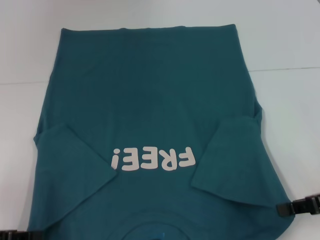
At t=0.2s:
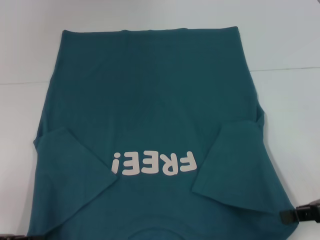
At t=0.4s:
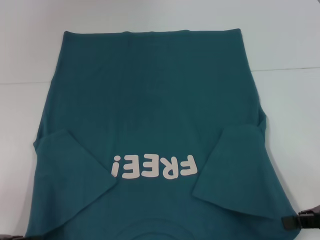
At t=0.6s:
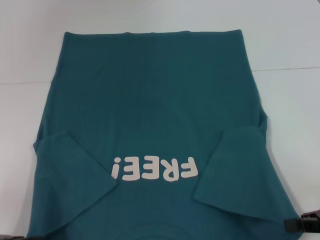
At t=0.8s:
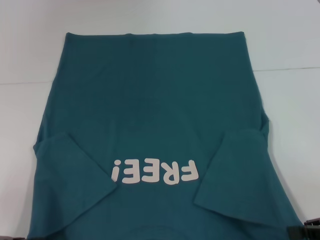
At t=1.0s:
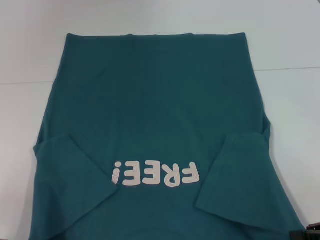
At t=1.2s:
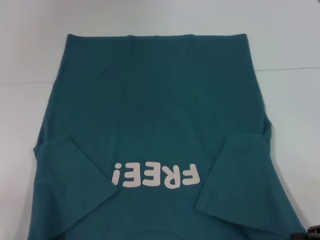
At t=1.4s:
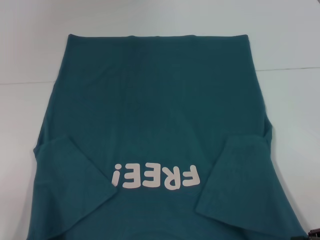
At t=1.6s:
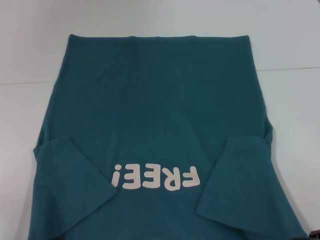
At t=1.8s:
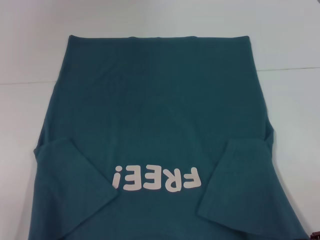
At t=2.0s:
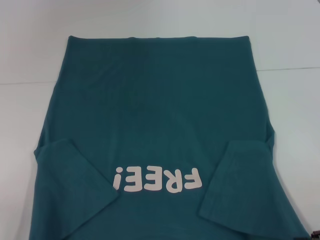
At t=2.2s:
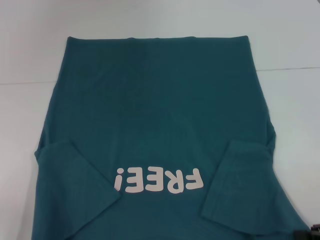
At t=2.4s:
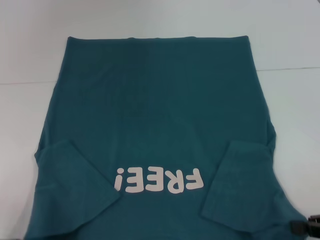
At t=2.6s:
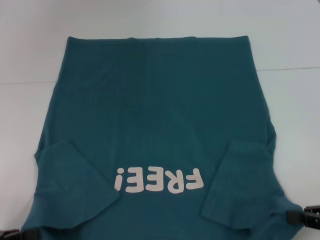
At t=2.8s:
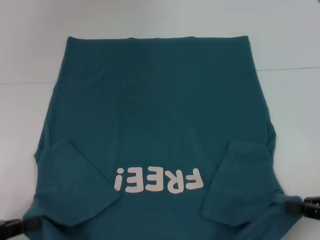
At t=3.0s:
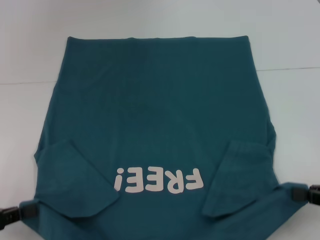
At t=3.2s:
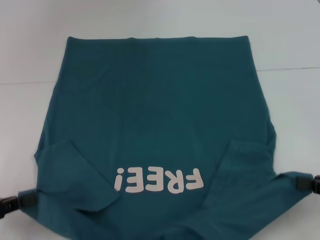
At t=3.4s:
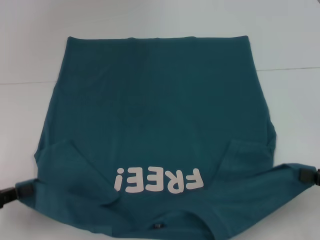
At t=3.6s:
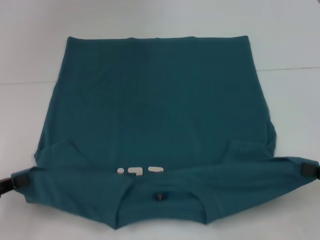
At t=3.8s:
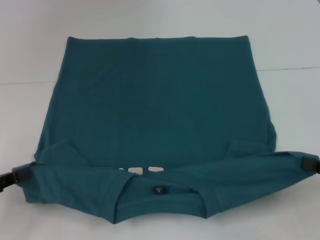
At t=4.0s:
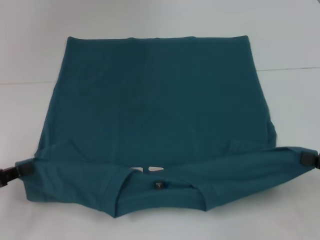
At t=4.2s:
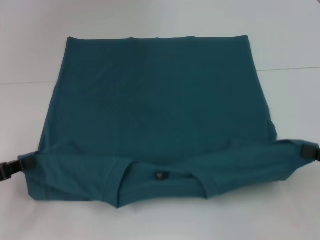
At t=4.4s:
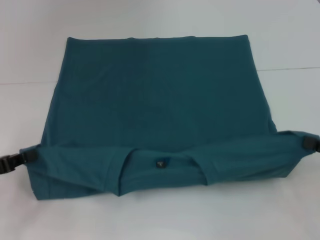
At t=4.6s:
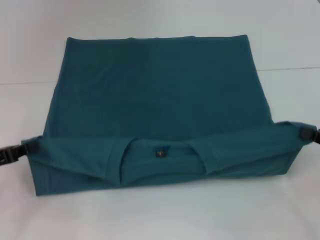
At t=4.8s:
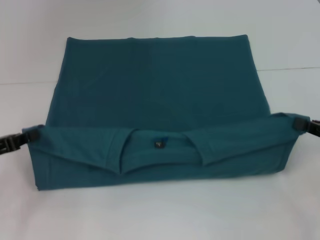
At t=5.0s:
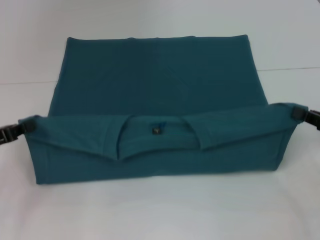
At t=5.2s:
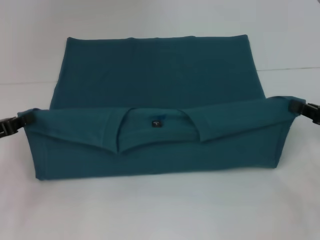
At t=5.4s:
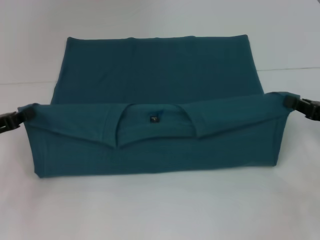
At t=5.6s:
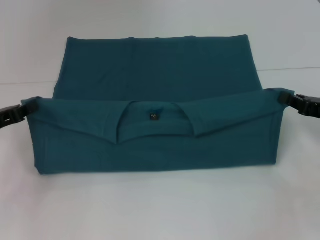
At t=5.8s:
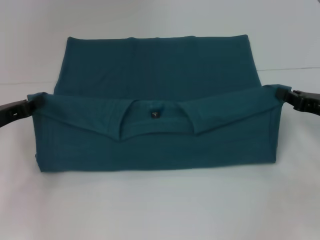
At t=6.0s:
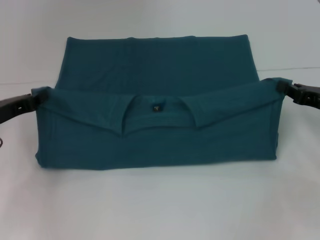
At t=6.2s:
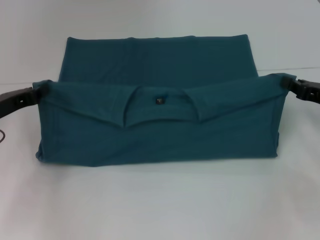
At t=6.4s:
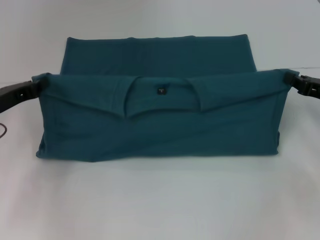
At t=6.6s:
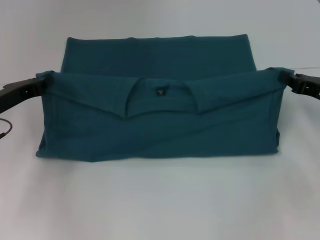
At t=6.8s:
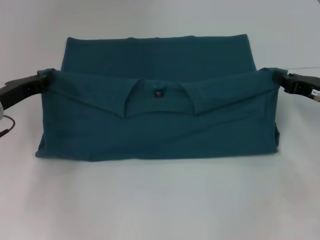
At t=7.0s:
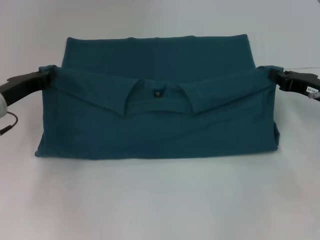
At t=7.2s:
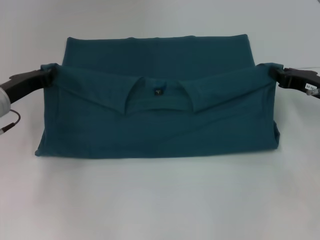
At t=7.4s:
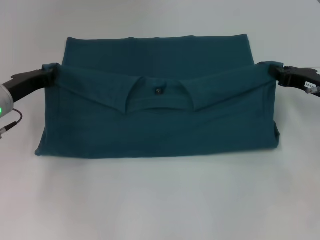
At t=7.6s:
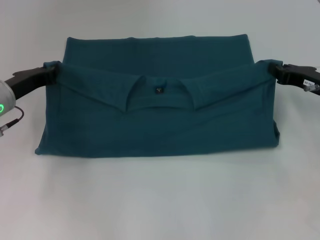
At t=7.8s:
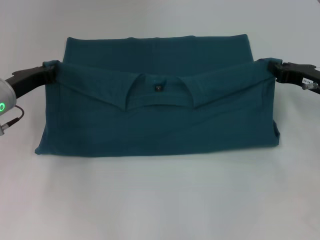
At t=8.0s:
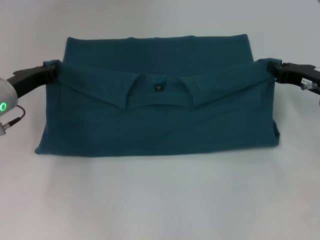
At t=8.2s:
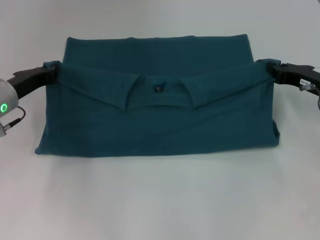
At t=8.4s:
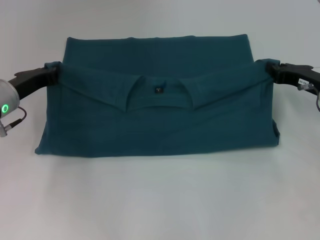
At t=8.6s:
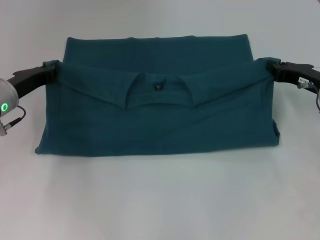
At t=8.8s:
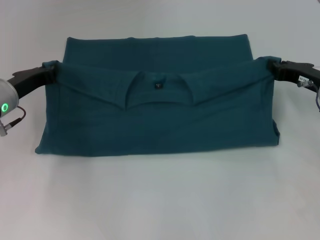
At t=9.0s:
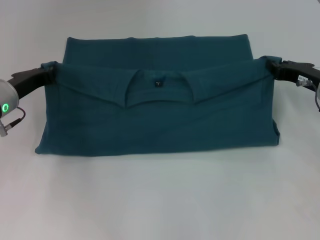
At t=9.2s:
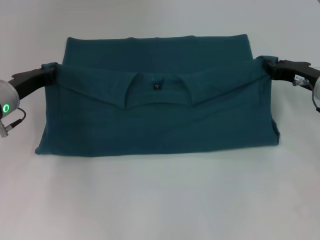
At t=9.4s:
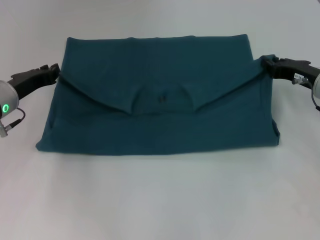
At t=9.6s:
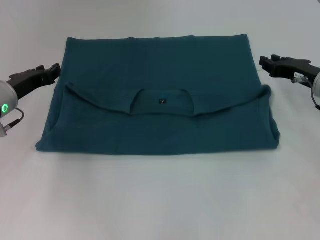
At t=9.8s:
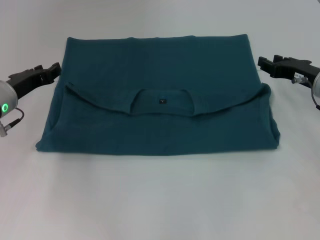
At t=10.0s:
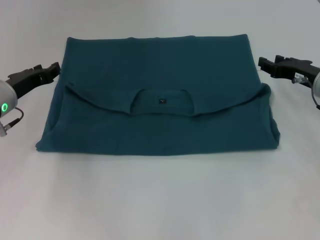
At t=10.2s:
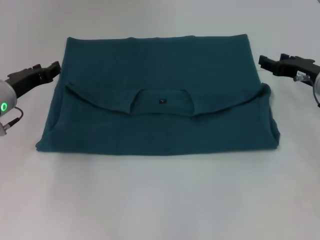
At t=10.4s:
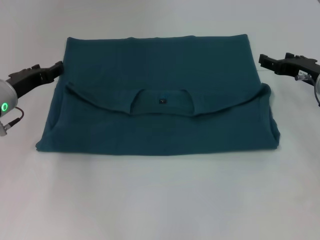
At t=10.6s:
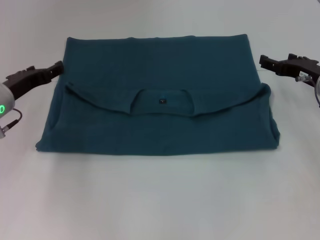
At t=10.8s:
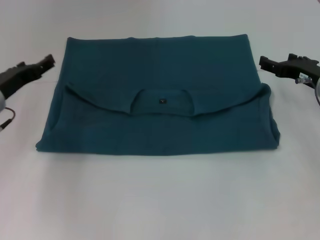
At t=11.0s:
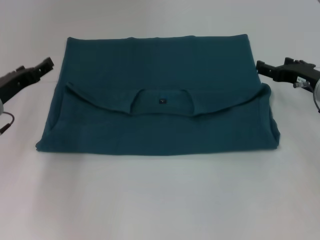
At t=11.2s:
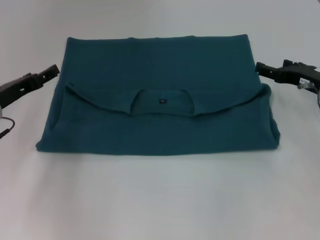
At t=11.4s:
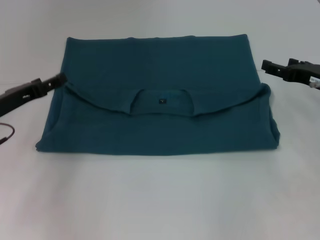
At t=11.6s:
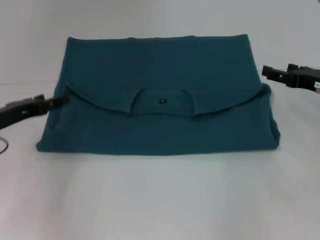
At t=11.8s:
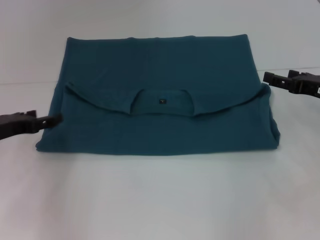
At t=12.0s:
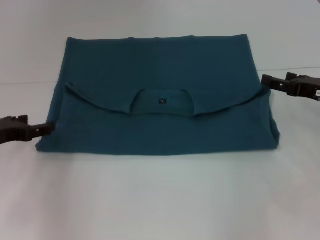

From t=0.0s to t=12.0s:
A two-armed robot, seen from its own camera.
Step, from t=0.0s to t=9.6s: Fold the clothes to the left.
Step, from t=0.0s to t=9.6s: Fold the clothes to the right.
From t=0.0s to t=1.6s: The right gripper goes some 5 cm backward.
From t=1.6s to t=3.0s: The grippers move only a little.
From t=3.0s to t=4.4s: The left gripper is displaced forward by approximately 5 cm.
From t=4.4s to t=6.0s: Both grippers move forward, approximately 10 cm.
From t=6.0s to t=7.6s: The left gripper shifts by about 5 cm. Meanwhile the right gripper moves about 5 cm.
From t=7.6s to t=9.0s: There are only small adjustments of the grippers.
From t=9.0s to t=10.4s: The right gripper opens. Meanwhile the left gripper opens up.
From t=10.4s to t=12.0s: The right gripper travels backward by some 5 cm; the left gripper goes about 10 cm backward and to the left, and opens.

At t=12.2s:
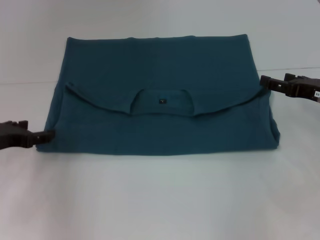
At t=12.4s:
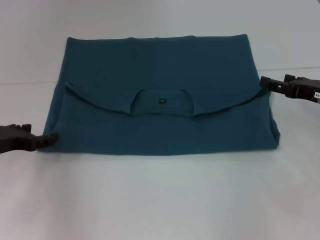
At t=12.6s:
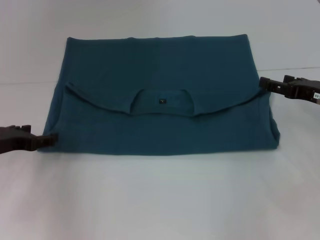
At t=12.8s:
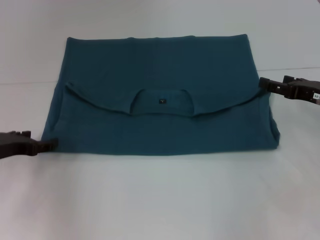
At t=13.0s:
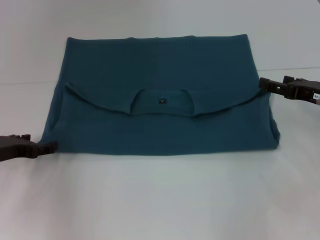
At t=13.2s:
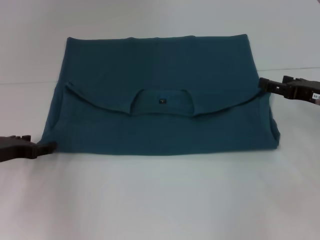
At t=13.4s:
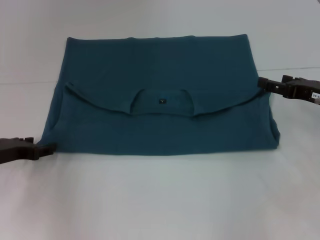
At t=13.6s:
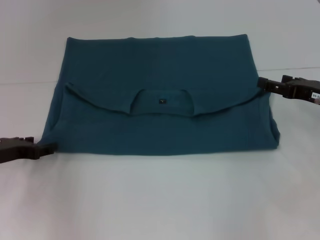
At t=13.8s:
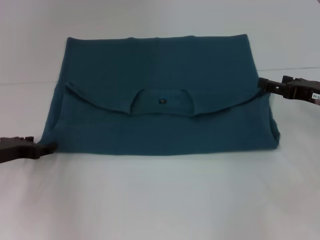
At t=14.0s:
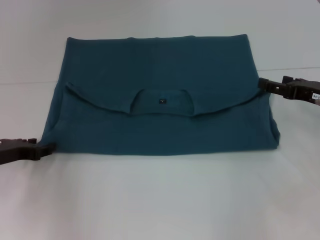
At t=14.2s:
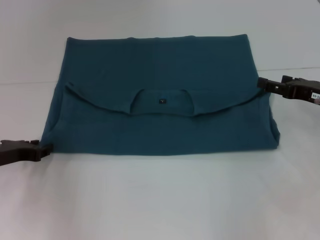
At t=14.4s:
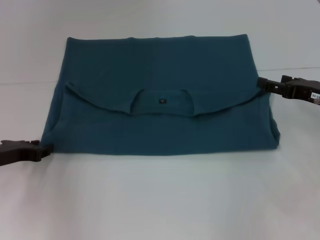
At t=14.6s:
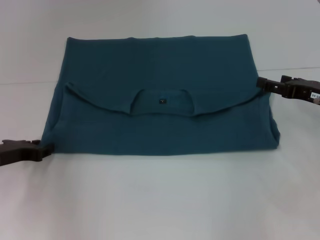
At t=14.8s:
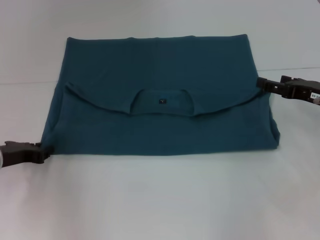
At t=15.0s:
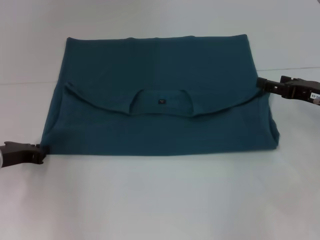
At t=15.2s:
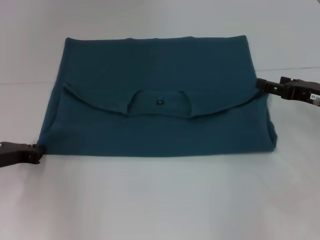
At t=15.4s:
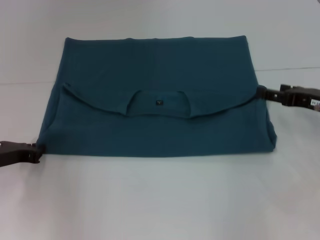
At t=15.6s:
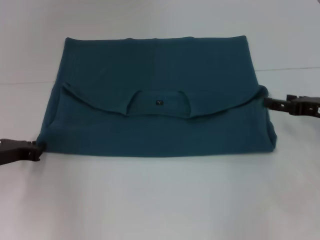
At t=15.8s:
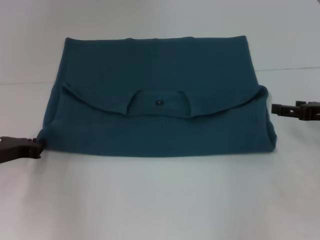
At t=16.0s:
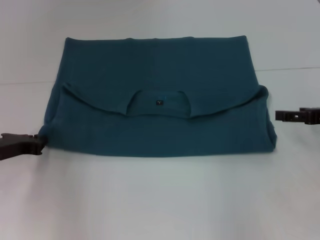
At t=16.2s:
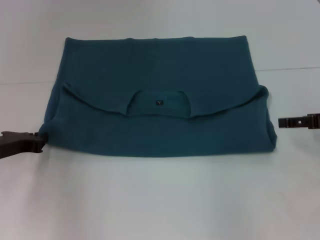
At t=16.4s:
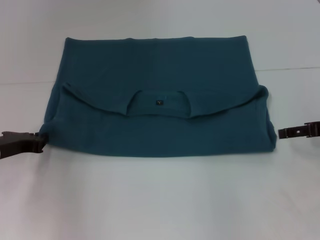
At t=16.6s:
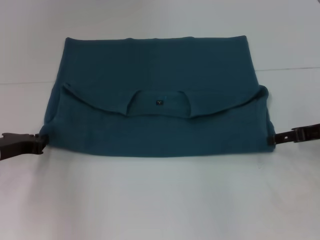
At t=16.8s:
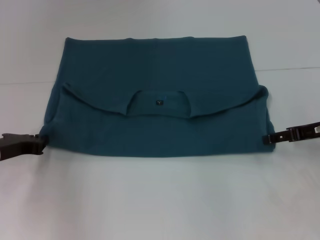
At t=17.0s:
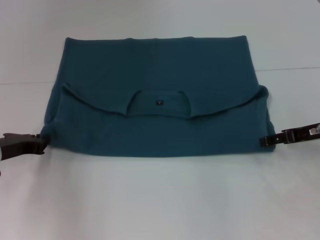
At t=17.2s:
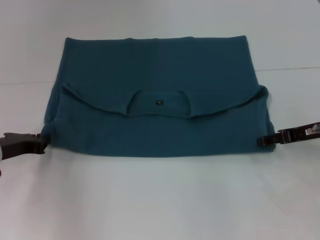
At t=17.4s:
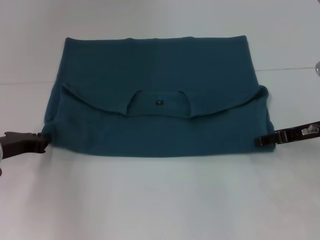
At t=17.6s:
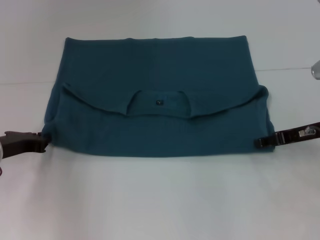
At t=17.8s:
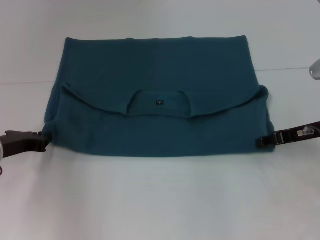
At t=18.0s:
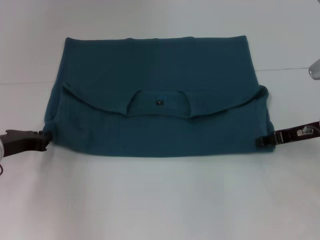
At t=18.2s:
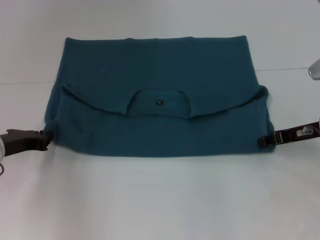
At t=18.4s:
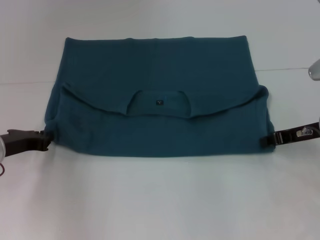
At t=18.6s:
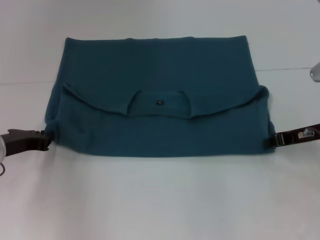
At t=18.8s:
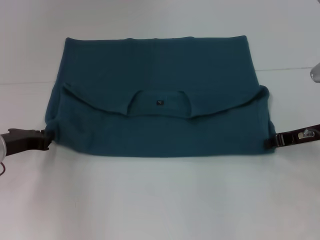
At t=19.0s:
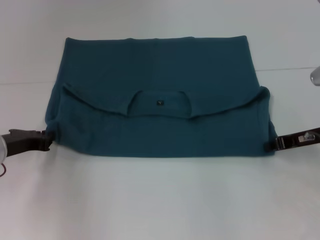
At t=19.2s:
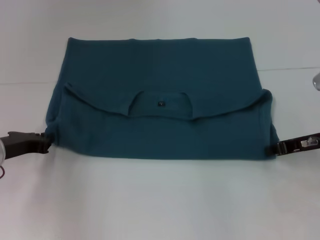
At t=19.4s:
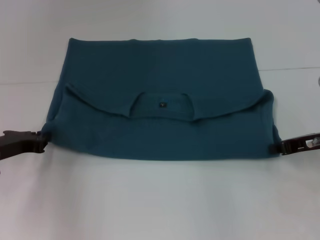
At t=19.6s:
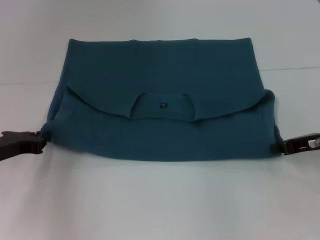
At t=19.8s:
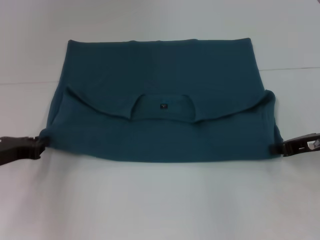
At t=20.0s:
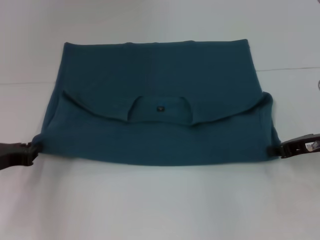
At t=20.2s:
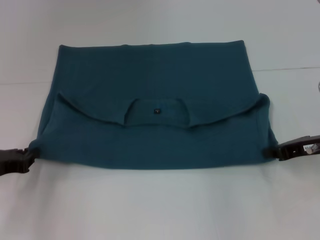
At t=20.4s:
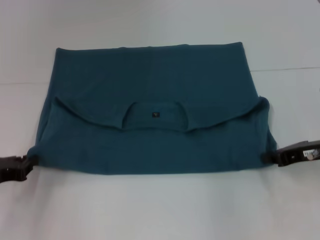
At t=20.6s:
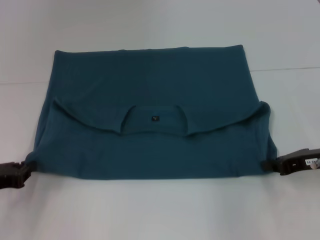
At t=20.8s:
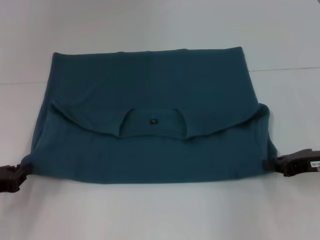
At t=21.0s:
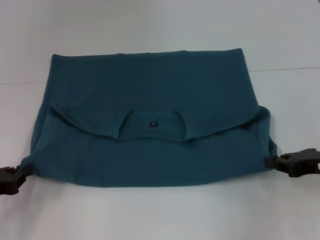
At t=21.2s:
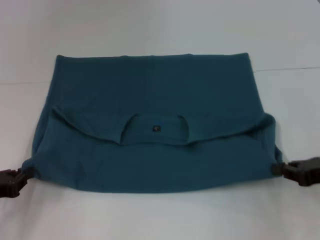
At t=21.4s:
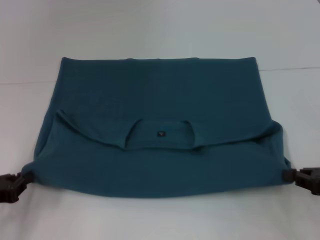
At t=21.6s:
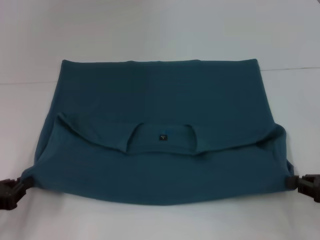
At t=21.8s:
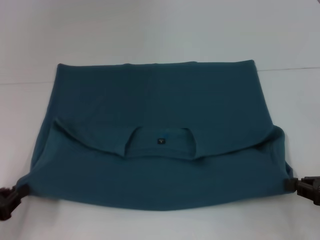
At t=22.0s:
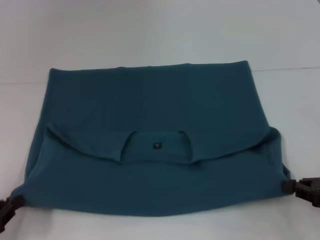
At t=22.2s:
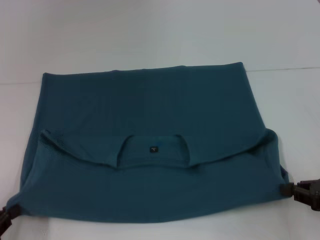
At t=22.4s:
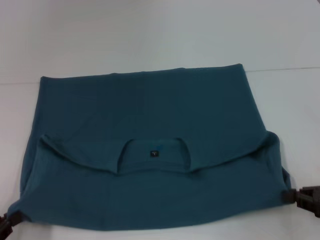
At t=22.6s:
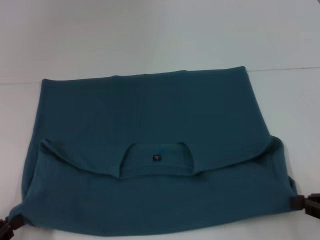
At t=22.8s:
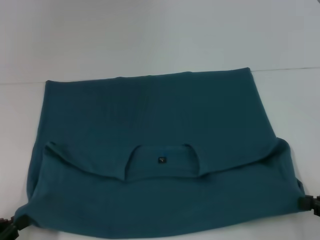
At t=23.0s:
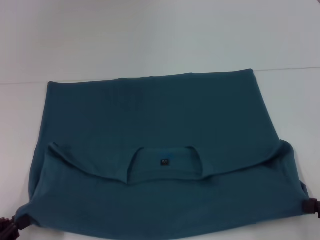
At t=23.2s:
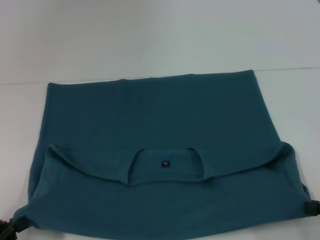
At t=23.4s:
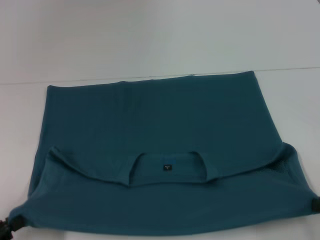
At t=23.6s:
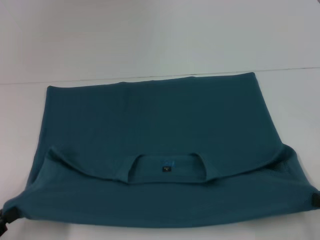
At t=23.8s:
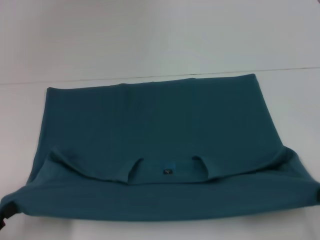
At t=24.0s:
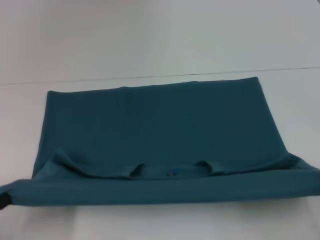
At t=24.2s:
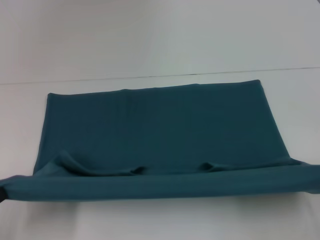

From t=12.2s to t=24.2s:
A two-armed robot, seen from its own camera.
Step, from t=12.2s to t=23.0s: Pull the clothes with your left hand.
Step, from t=12.2s to t=23.0s: Pull the clothes with your right hand.
From t=12.2s to t=13.8s: The grippers move only a little.
From t=13.8s to t=15.2s: The left gripper closes its fingers.
From t=16.6s to t=18.2s: The right gripper closes.
From t=18.2s to t=19.8s: The right gripper closes.
From t=19.8s to t=21.2s: The two grippers go some 5 cm backward.
From t=21.2s to t=22.6s: The left gripper heads backward, covering roughly 10 cm. Meanwhile the right gripper goes some 5 cm backward.
From t=22.6s to t=24.2s: The right gripper changes place by about 5 cm.
